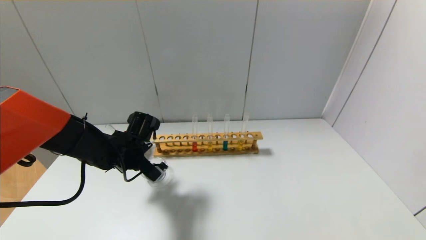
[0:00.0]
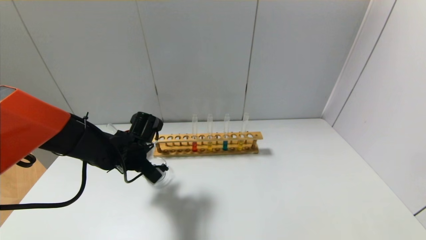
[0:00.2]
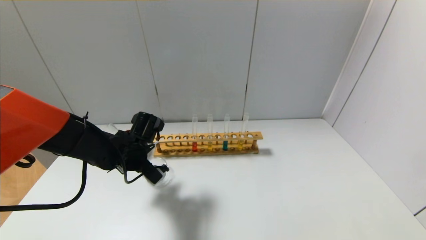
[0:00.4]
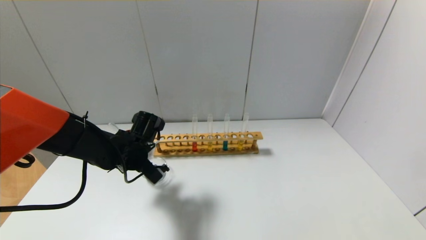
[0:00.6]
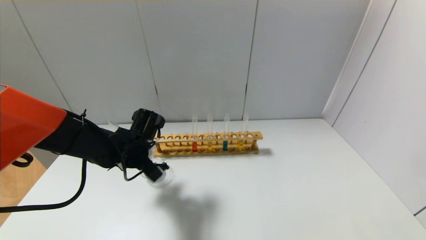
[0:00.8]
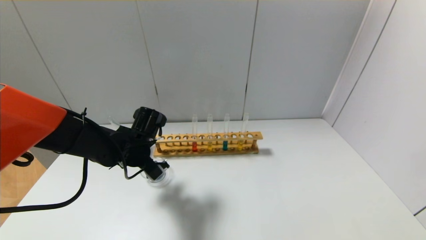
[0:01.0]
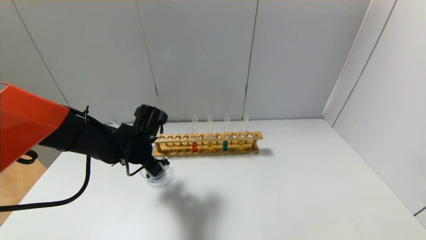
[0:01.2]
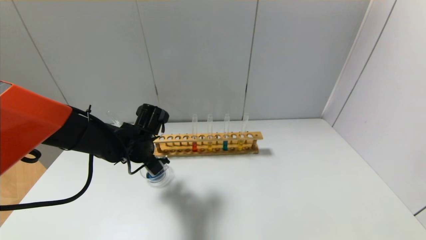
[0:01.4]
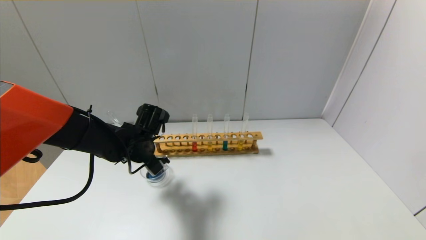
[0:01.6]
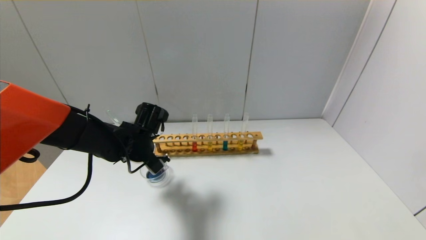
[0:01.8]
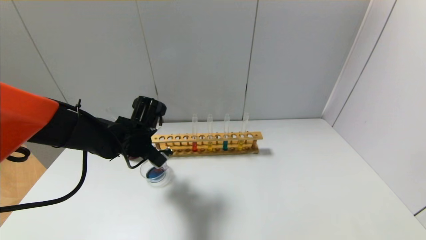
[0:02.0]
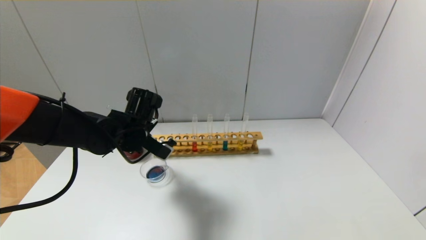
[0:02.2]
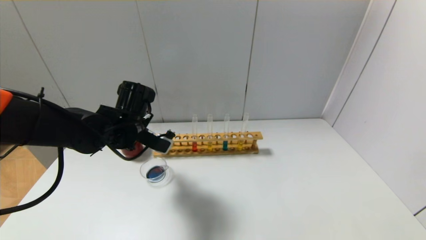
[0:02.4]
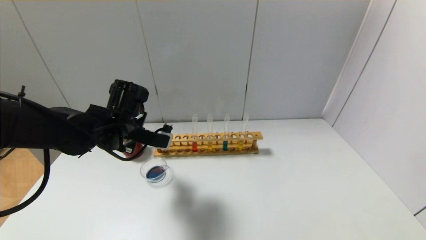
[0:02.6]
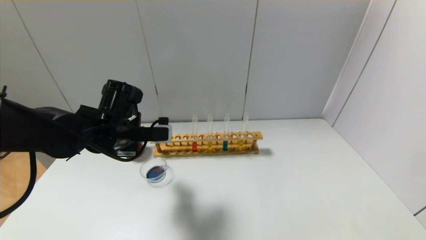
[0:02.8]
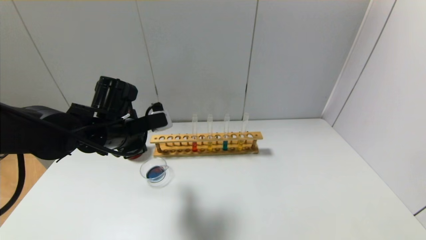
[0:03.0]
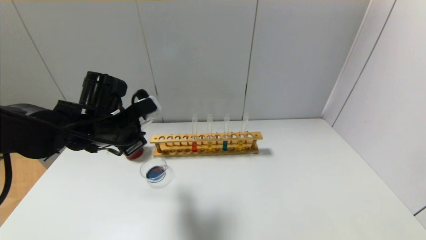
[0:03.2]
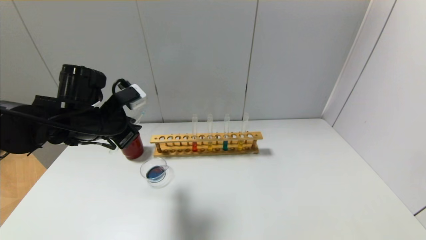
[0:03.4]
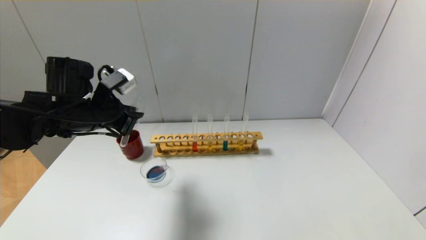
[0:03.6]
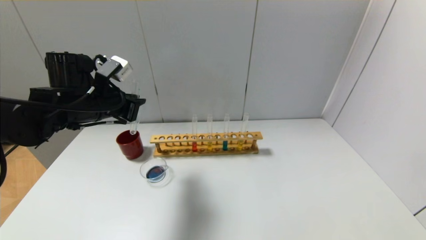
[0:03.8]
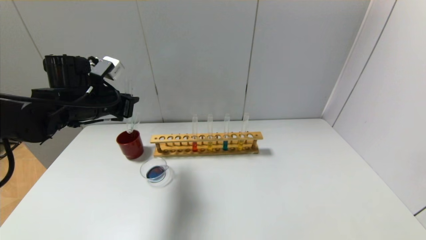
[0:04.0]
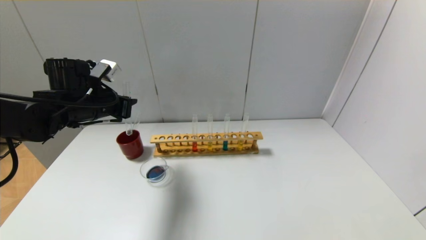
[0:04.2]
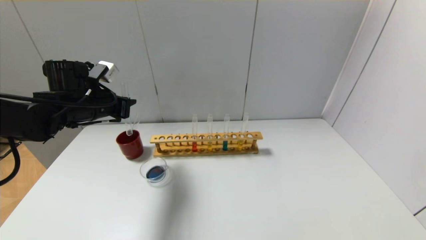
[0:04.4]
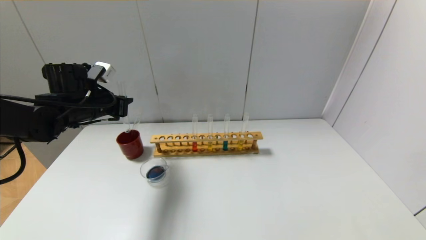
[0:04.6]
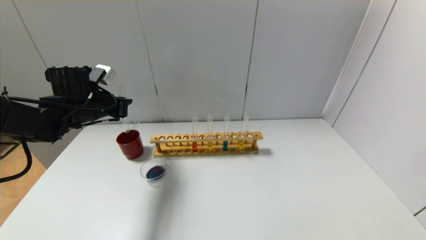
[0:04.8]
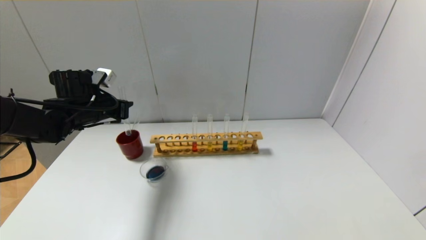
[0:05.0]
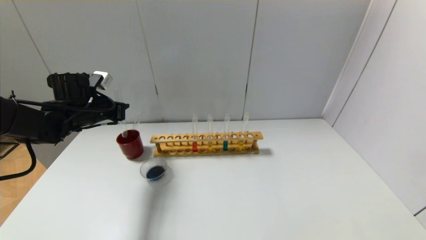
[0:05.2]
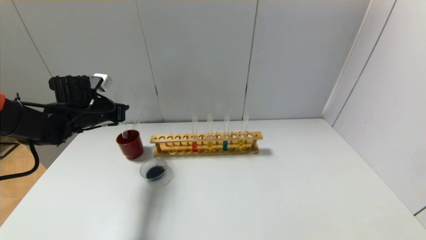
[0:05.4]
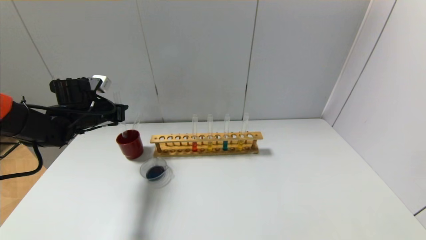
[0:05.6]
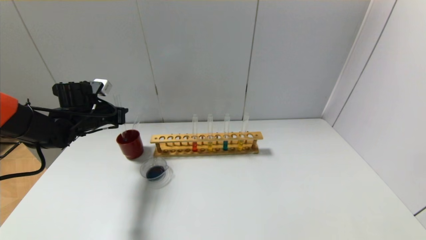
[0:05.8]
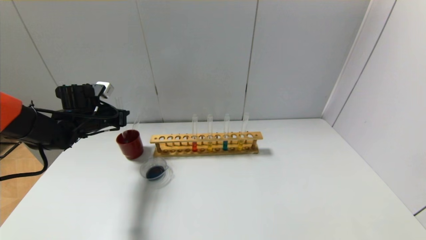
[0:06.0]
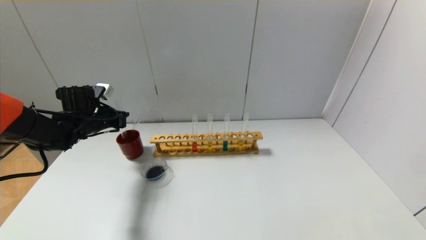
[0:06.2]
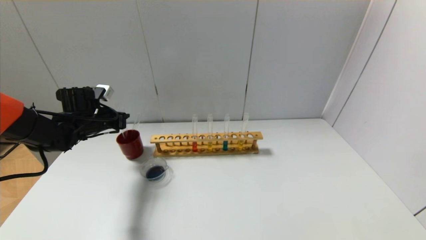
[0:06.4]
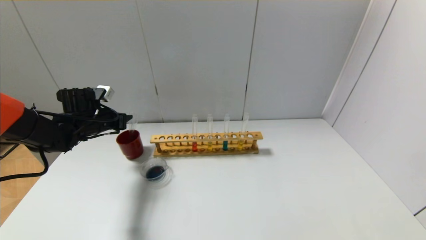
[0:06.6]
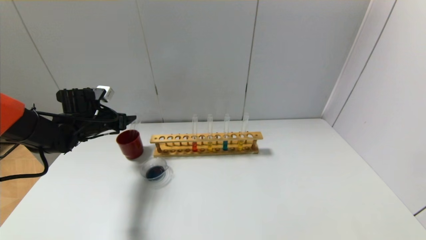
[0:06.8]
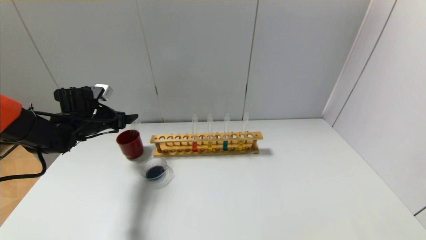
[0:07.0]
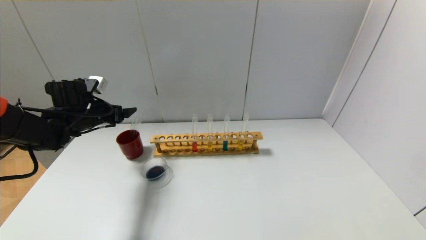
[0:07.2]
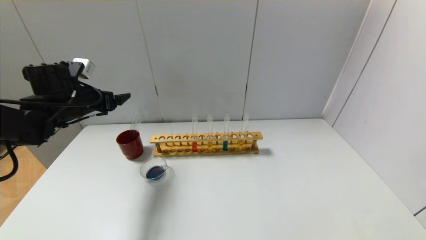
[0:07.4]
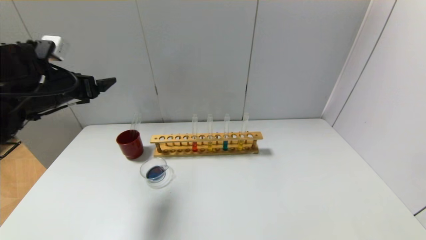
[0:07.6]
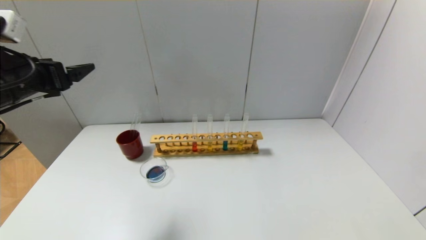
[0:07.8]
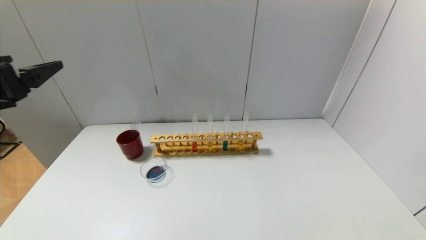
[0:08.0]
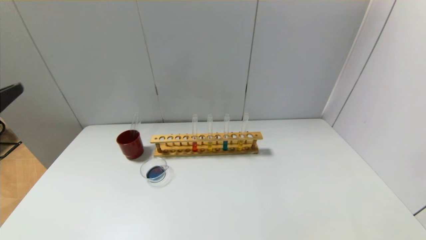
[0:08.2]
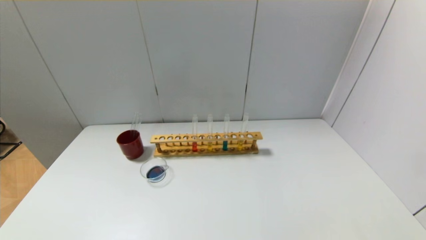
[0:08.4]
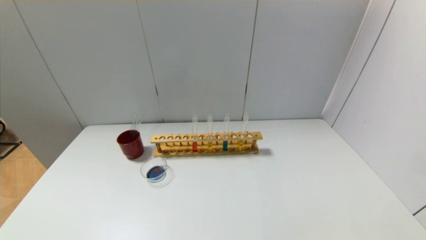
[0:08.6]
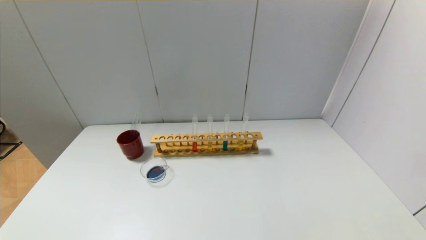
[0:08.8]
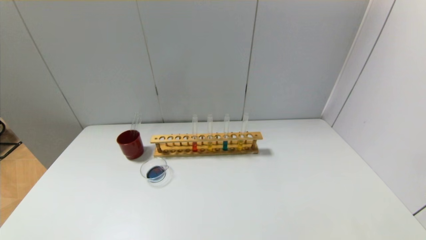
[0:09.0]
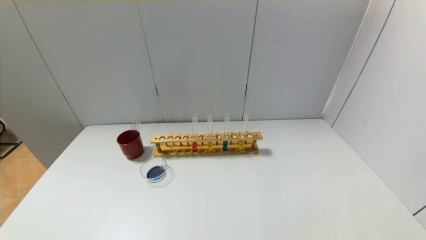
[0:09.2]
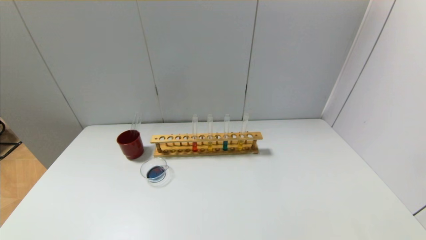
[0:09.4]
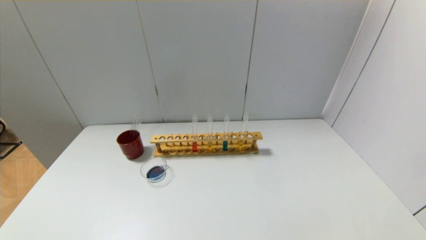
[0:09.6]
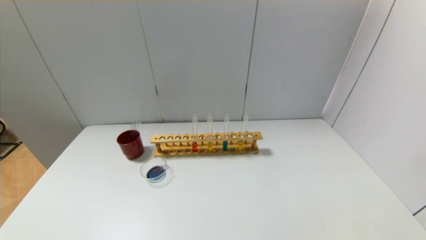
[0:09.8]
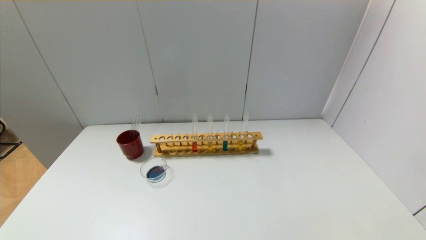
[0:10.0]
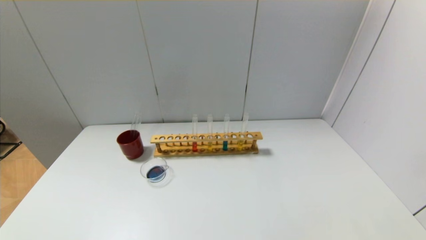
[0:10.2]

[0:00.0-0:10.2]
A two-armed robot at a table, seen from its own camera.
Step, 0:01.8 to 0:06.6: Place the test tube into the brown cup with the left gripper.
0:00.0 to 0:01.4: The grippers stay close to where they were, moving slightly.
0:01.4 to 0:03.0: The left gripper heads upward and backward, covering about 10 cm.
0:03.0 to 0:04.4: The left gripper heads to the left and forward, covering some 10 cm.
0:04.4 to 0:05.8: The left gripper travels downward by roughly 5 cm.
0:05.8 to 0:07.2: The left gripper opens up.
0:07.2 to 0:08.8: The left gripper is displaced backward by roughly 40 cm.
